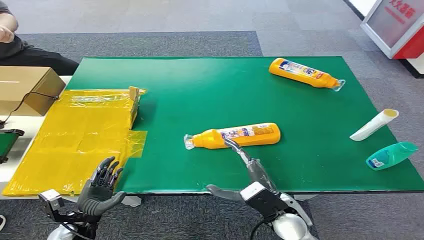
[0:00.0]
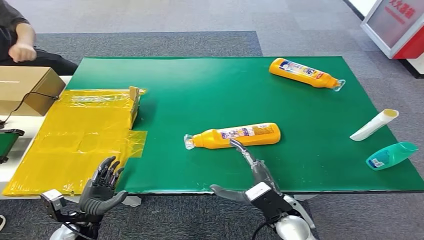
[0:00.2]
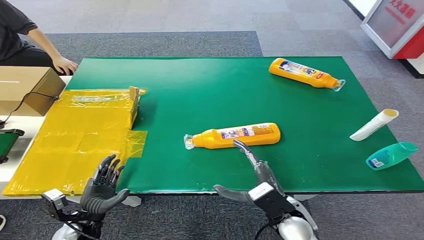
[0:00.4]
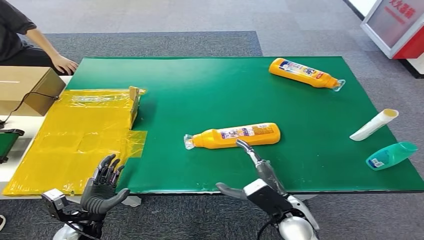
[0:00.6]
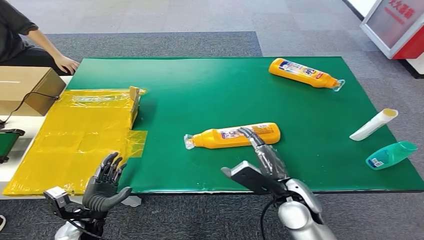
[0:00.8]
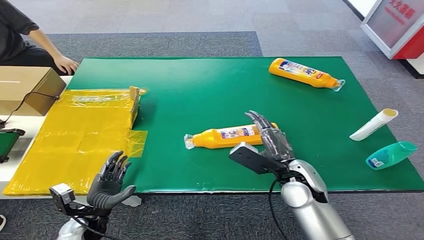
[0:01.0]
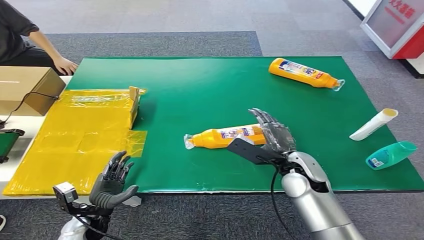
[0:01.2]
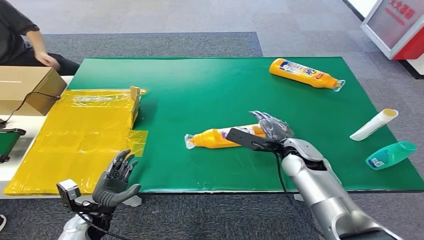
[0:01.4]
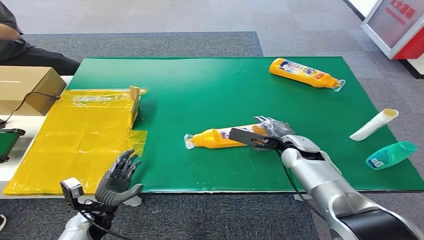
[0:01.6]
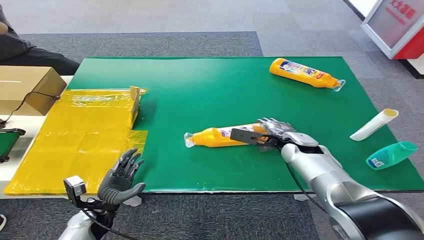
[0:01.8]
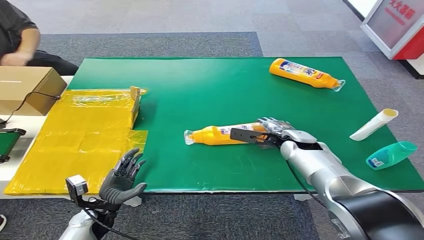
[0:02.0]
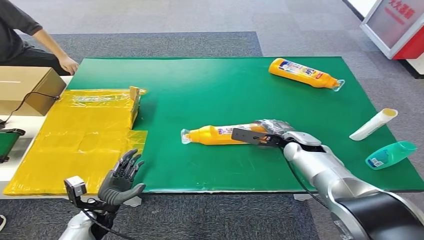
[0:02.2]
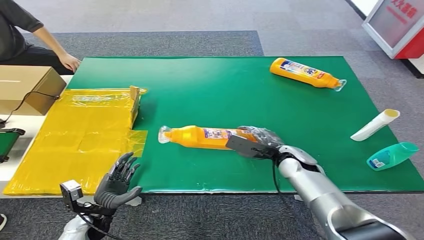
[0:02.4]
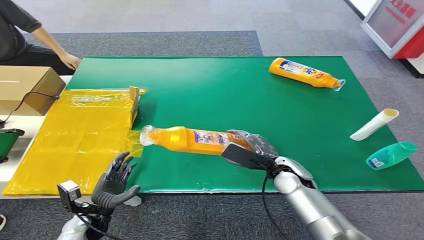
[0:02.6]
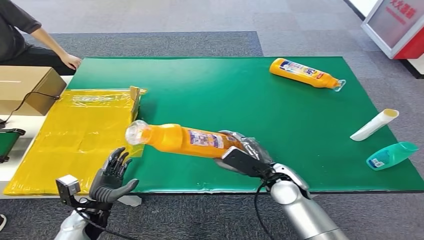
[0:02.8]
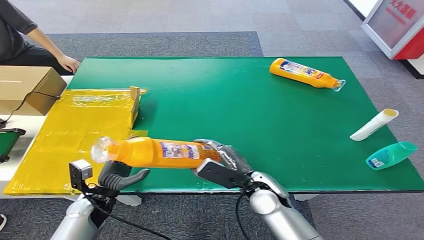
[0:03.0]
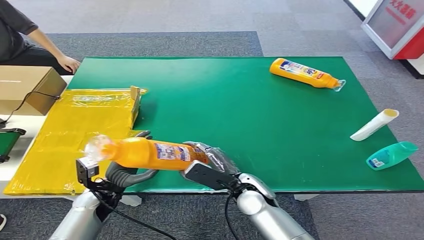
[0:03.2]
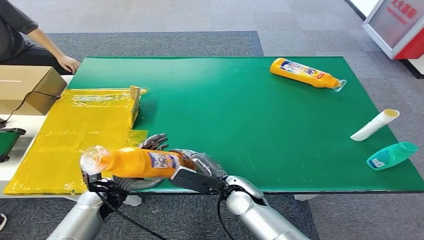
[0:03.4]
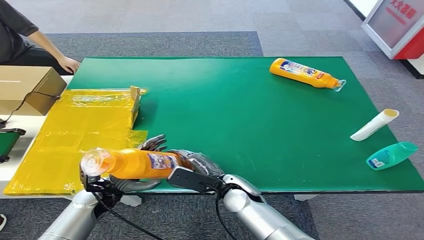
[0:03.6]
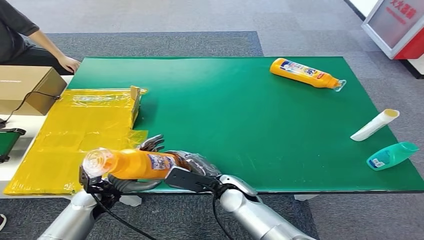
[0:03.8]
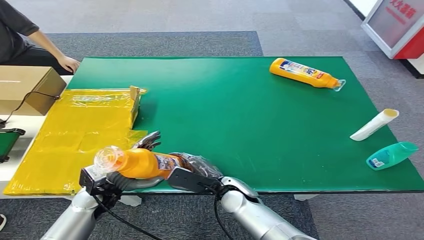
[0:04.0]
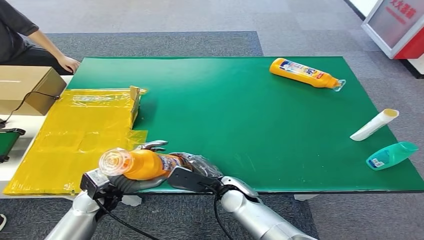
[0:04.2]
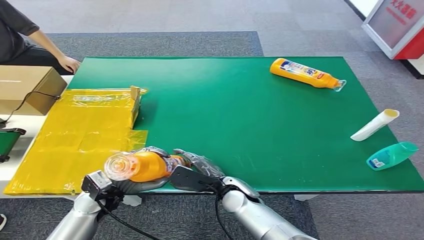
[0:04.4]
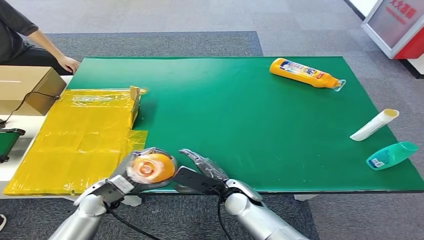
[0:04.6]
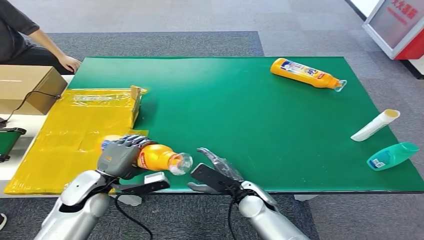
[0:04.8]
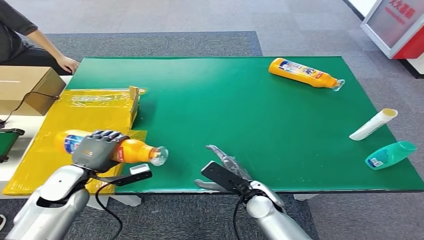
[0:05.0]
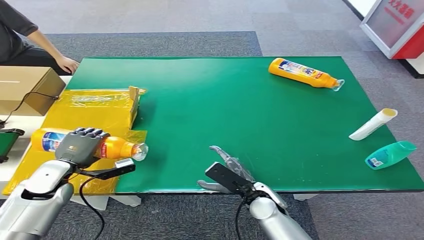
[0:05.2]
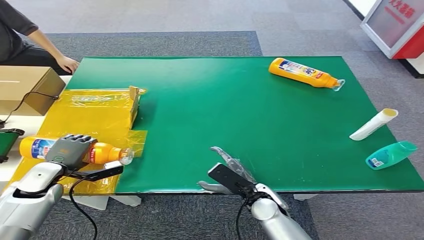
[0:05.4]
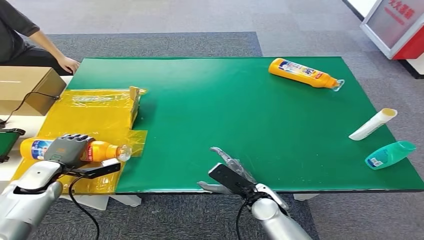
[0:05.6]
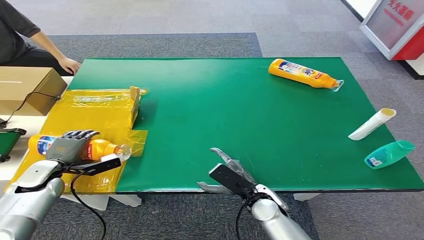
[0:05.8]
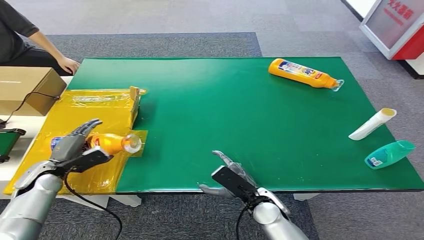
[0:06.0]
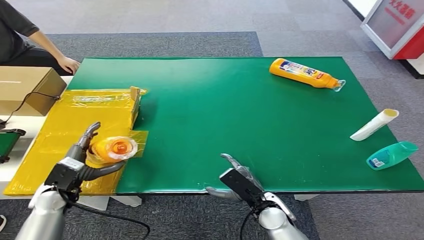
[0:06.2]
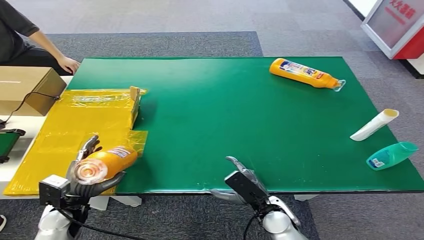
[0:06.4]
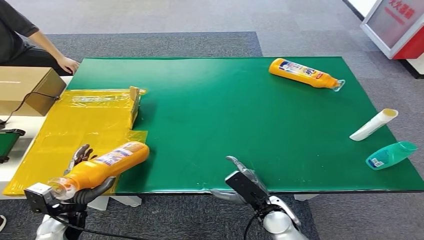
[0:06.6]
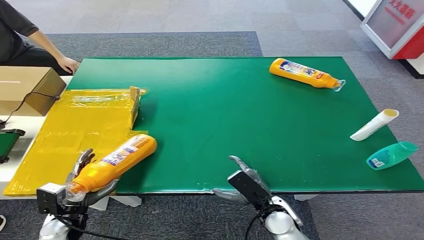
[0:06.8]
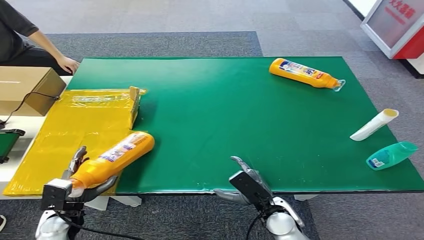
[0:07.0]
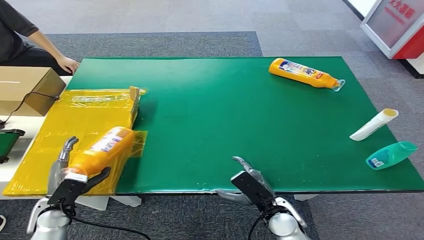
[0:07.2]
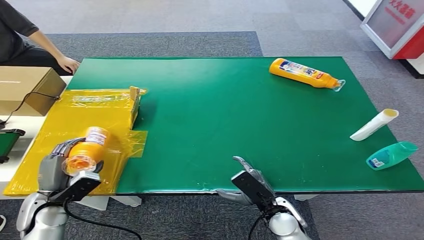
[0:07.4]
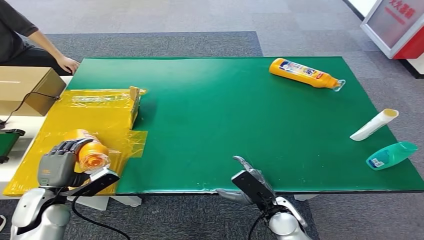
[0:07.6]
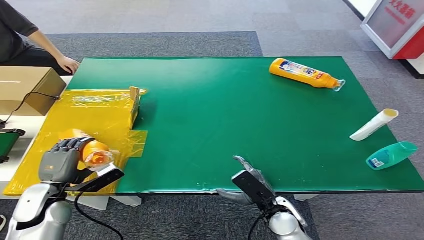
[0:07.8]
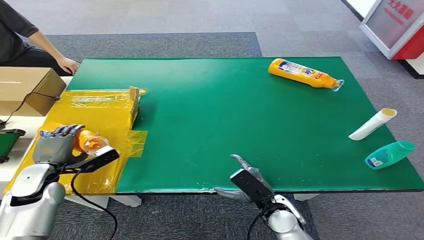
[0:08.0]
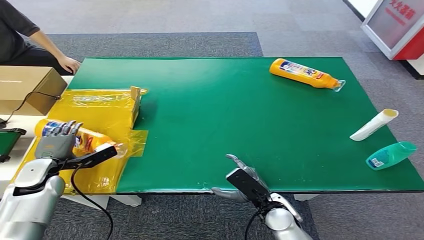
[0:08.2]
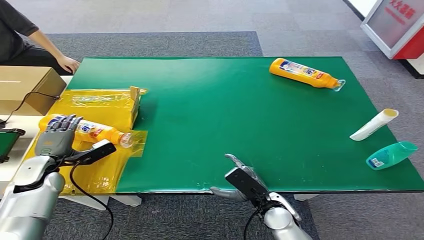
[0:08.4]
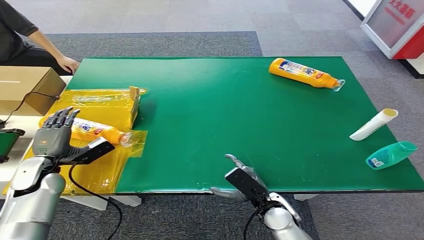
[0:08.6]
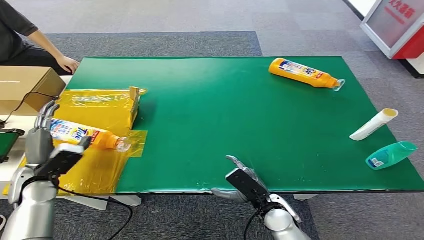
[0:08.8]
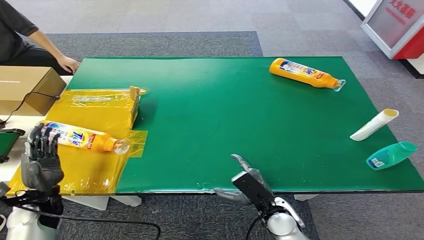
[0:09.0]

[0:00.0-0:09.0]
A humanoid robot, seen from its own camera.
Step, 0:00.0 to 0:02.8: Pick up the bottle from the table.
Step, 0:03.0 to 0:09.0: Turn the bottle to the front side.
0:01.6 to 0:03.0: The right hand travels backward and to the left by approximately 15 cm.
0:03.0 to 0:04.4: The left hand ends up approximately 5 cm from where it was, while the right hand travels to the left by roughly 5 cm.
0:04.4 to 0:06.0: The left hand moves to the left and forward, approximately 15 cm. The right hand travels to the right by some 5 cm.
0:06.0 to 0:07.6: The left hand travels backward by approximately 10 cm.
0:07.6 to 0:09.0: The left hand reaches roughly 10 cm forward, then returns.
